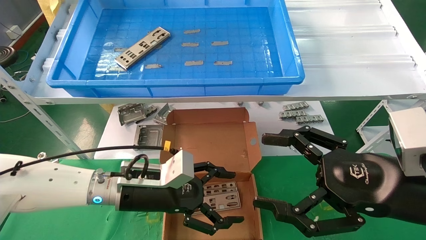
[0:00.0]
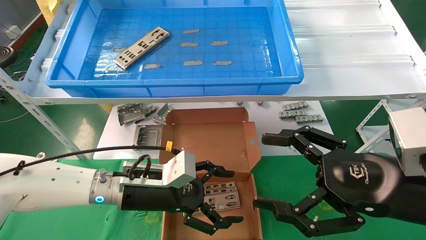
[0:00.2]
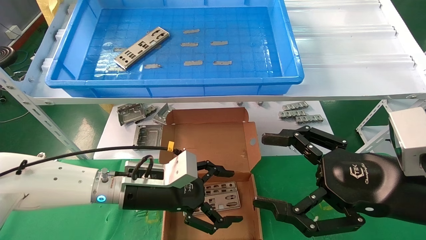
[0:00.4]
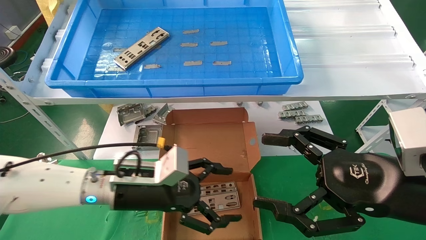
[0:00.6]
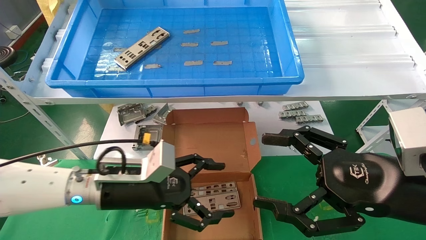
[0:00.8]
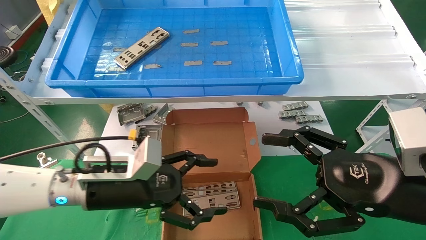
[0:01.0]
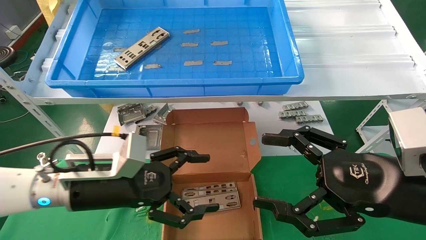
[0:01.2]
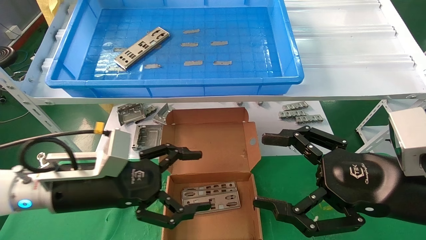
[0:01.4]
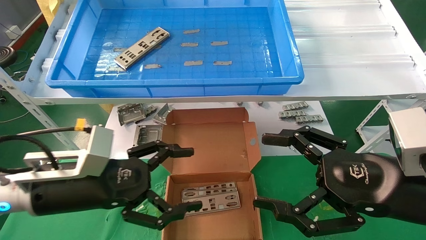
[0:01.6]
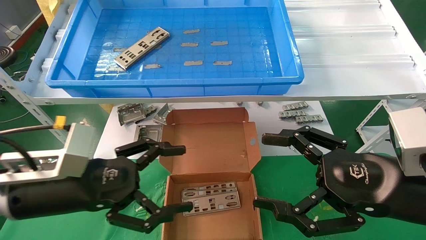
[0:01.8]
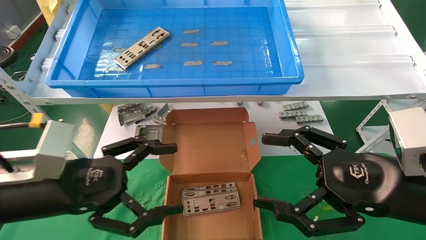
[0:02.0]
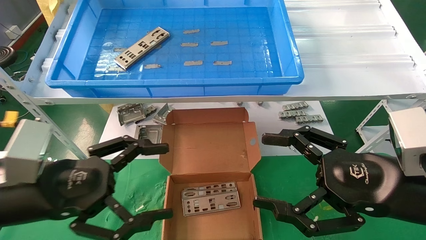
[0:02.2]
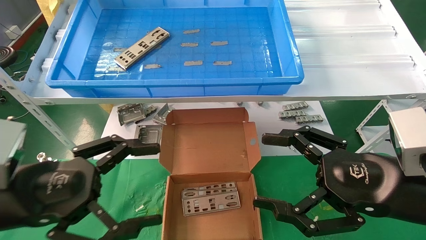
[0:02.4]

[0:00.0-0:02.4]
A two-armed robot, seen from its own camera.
Task of the whole recording: pick up the parts on the tray and put them in the cardboard box.
0:00.0 to 0:01.2: The left gripper shifts approximately 5 cm to the left.
0:01.2 to 0:02.4: The left gripper shifts some 10 cm backward and to the left.
